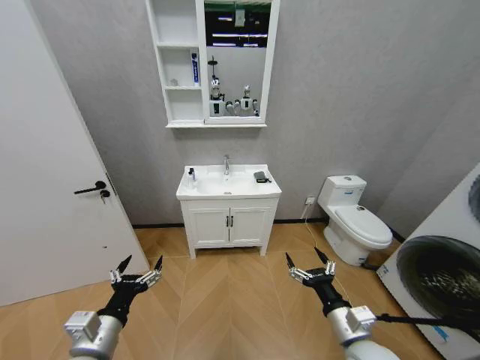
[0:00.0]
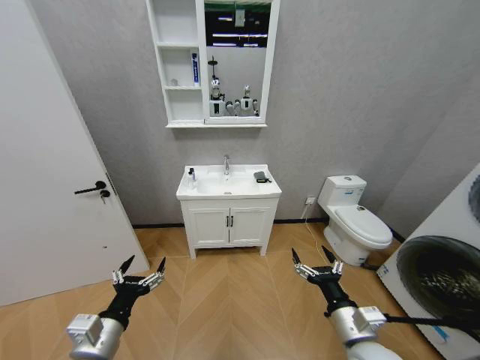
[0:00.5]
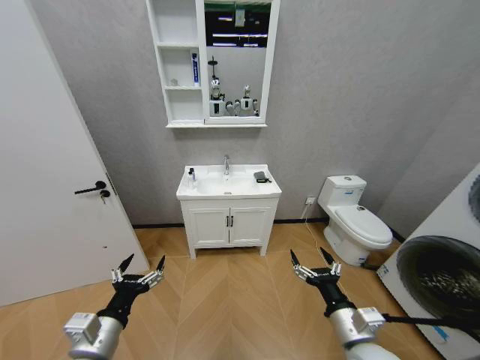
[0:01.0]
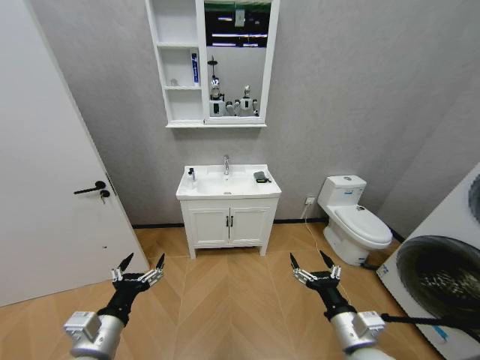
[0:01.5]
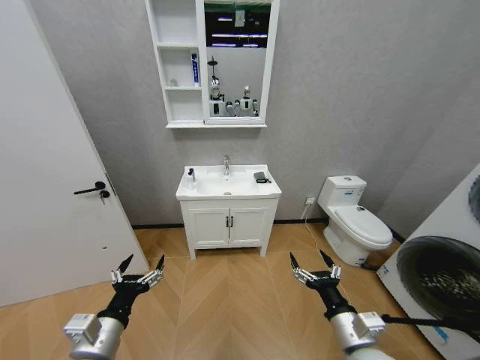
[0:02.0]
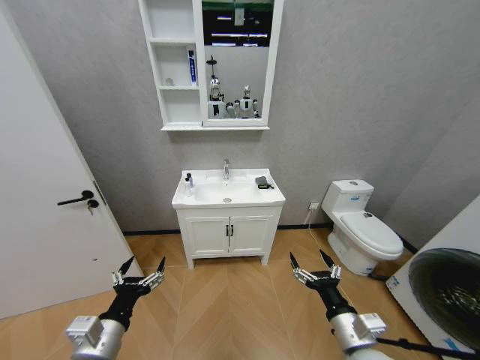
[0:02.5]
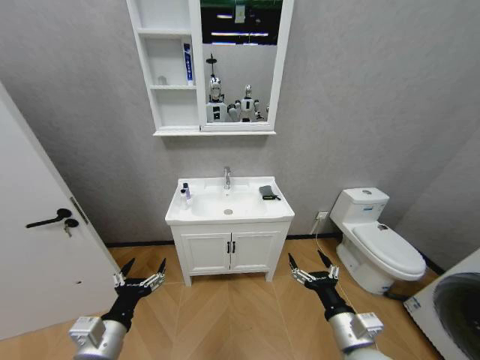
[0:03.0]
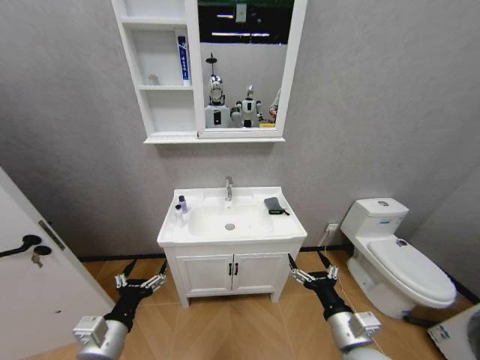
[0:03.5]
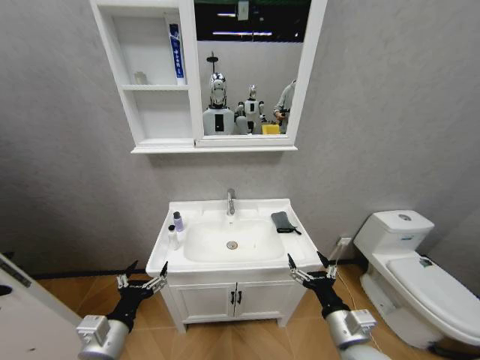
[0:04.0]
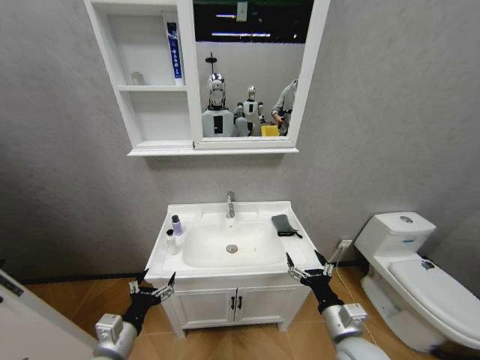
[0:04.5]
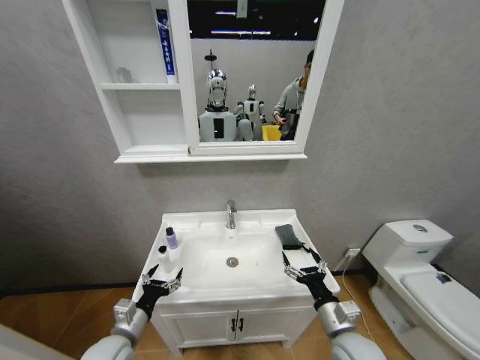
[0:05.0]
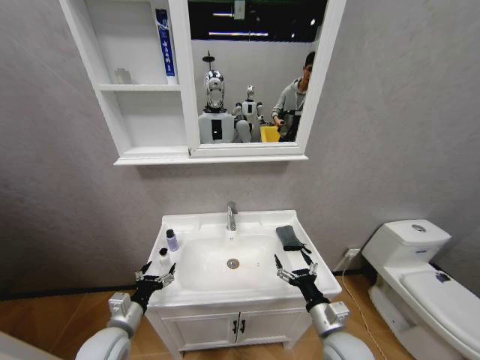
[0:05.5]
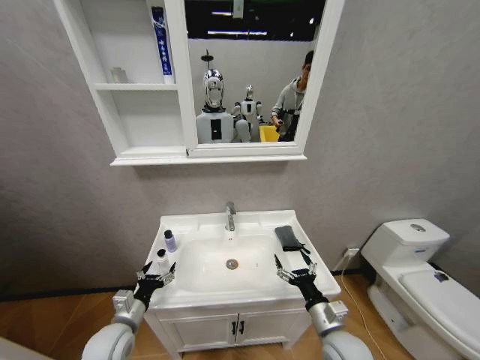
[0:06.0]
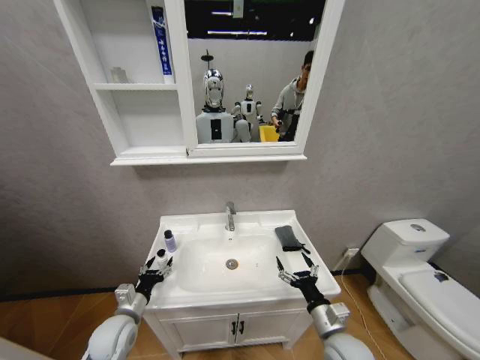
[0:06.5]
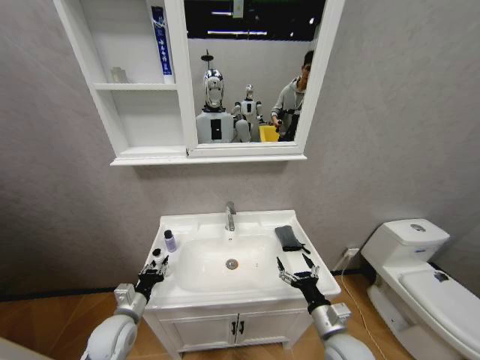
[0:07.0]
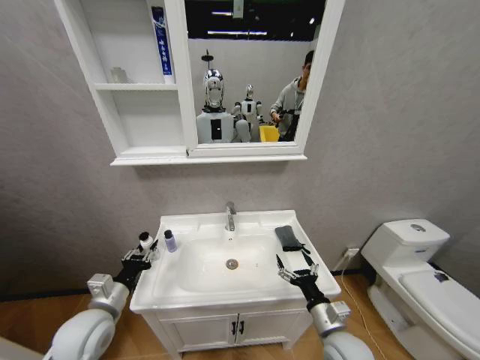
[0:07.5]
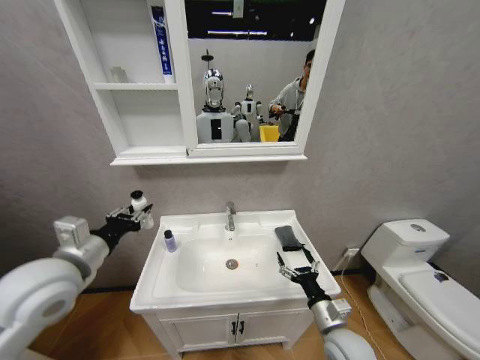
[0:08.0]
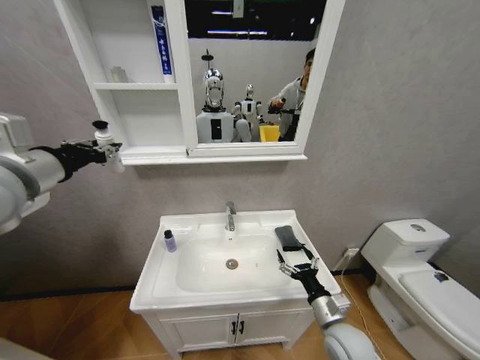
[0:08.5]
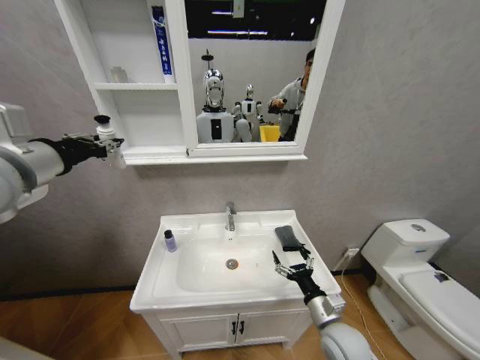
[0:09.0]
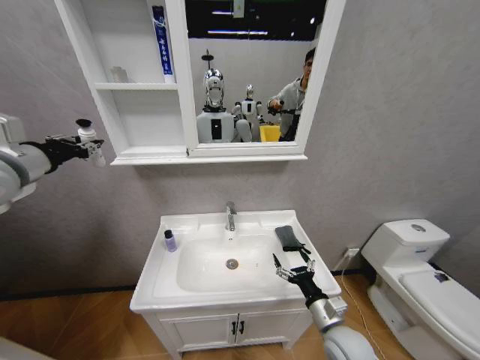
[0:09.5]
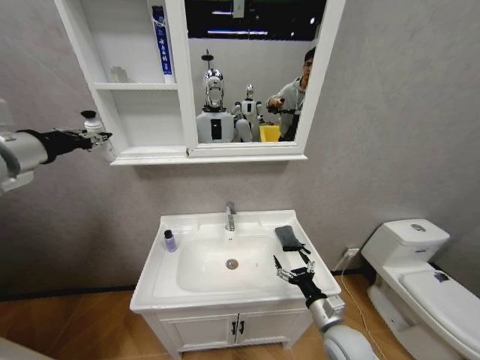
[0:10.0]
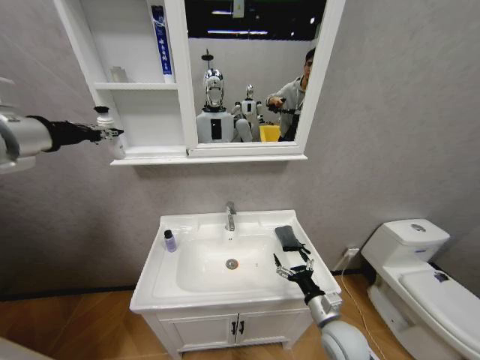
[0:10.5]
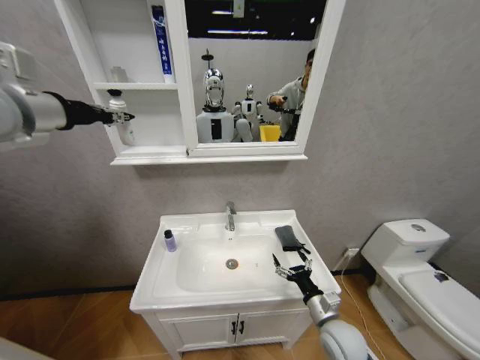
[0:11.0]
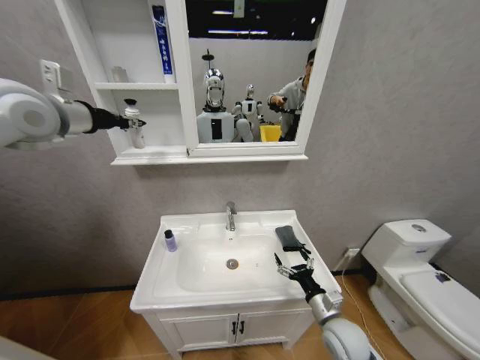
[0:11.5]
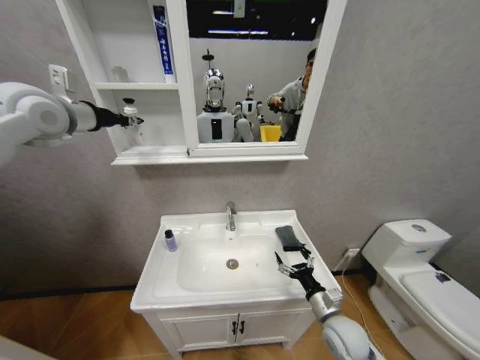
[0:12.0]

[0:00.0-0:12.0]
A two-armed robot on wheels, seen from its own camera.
Task of the whole recording: Move facial cleanser and shampoo from washbasin to cabinet, then wipe washbasin with towel.
0:04.0 to 0:06.0: The right gripper moves downward, some 5 cm. Meanwhile the left gripper moves downward and forward, some 10 cm.
0:06.0 to 0:08.0: The left gripper travels upward by some 25 cm, and closes its fingers.
0:08.0 to 0:10.0: The left gripper travels upward, to the left and forward by approximately 20 cm.
0:10.0 to 0:12.0: The left gripper heads forward, covering about 15 cm.

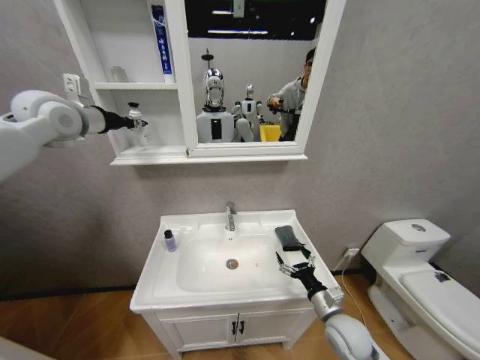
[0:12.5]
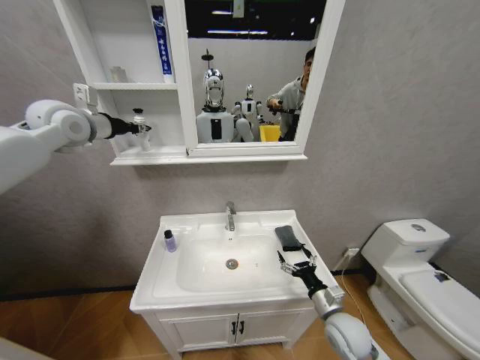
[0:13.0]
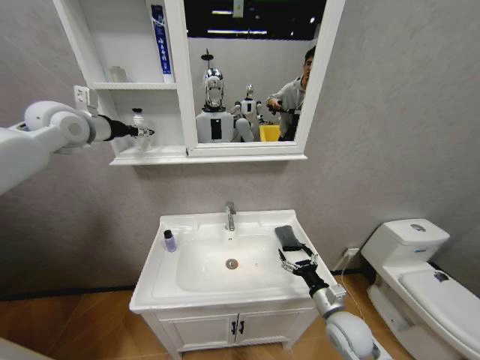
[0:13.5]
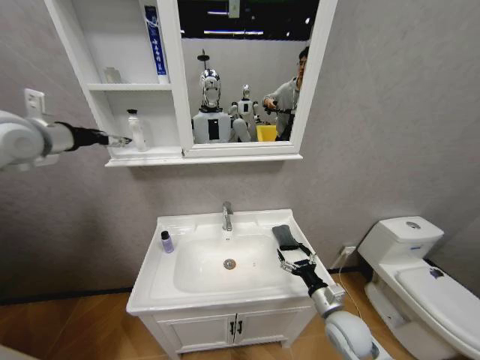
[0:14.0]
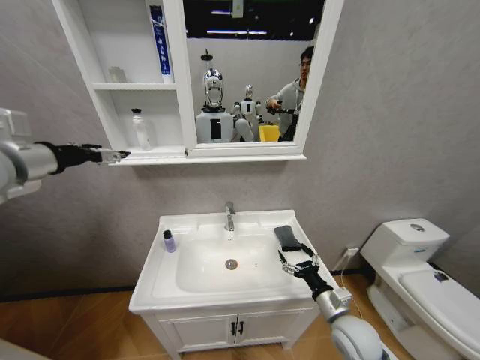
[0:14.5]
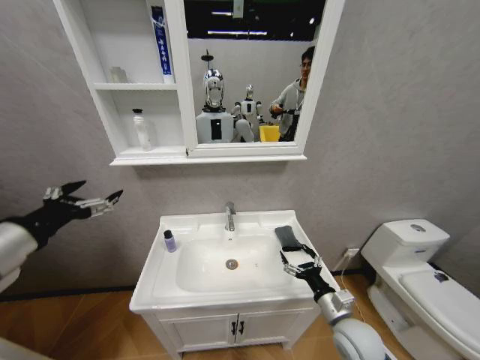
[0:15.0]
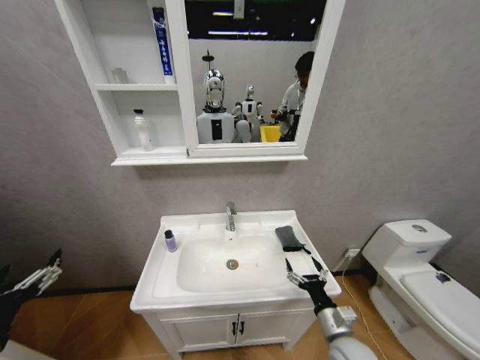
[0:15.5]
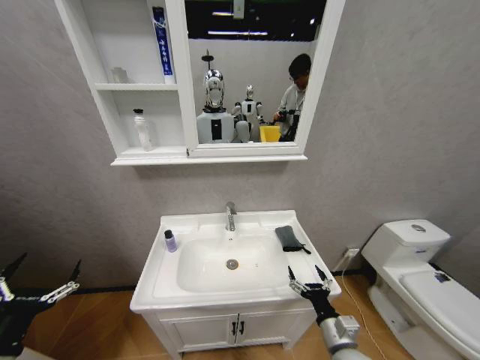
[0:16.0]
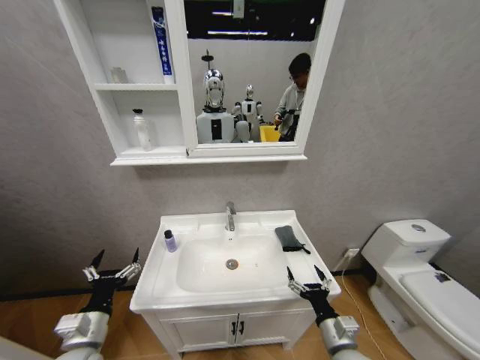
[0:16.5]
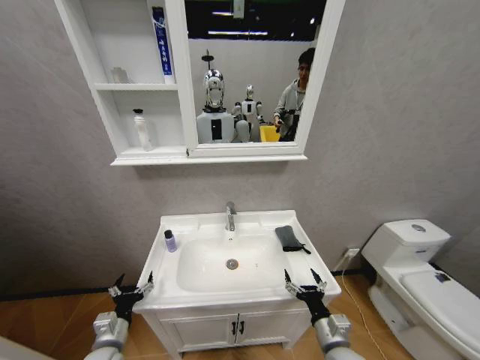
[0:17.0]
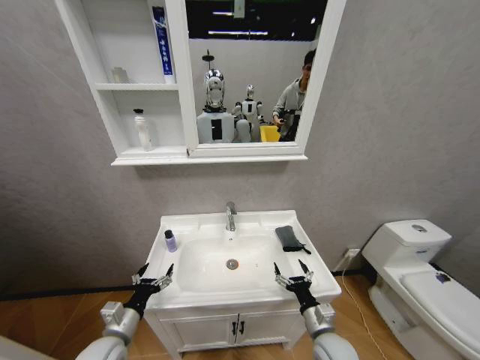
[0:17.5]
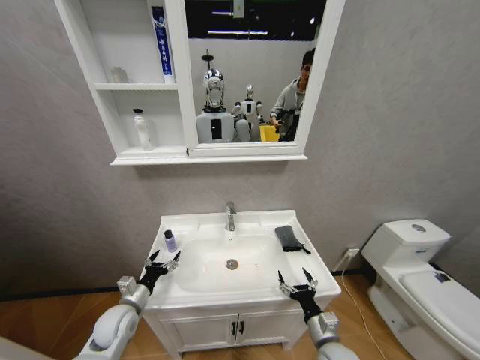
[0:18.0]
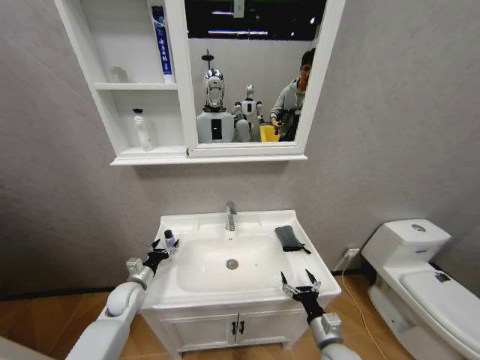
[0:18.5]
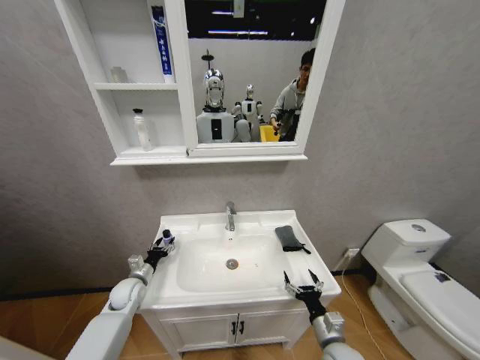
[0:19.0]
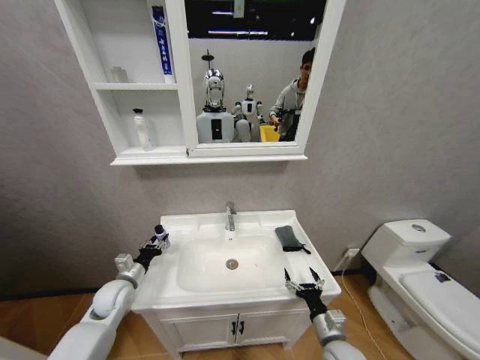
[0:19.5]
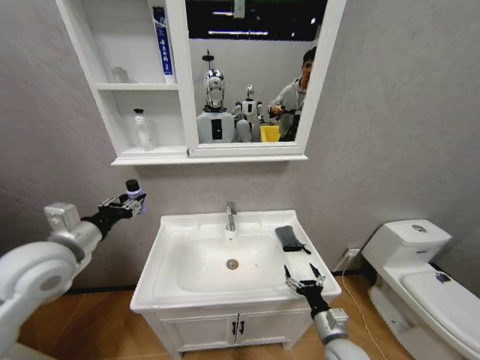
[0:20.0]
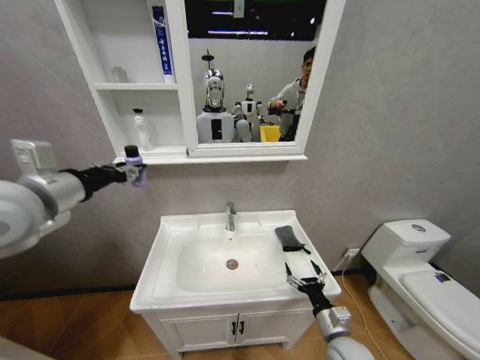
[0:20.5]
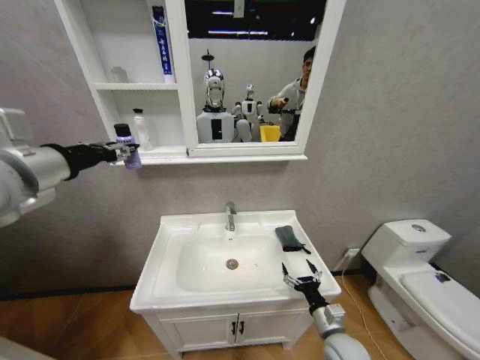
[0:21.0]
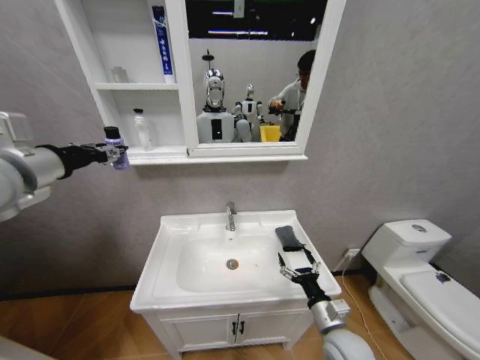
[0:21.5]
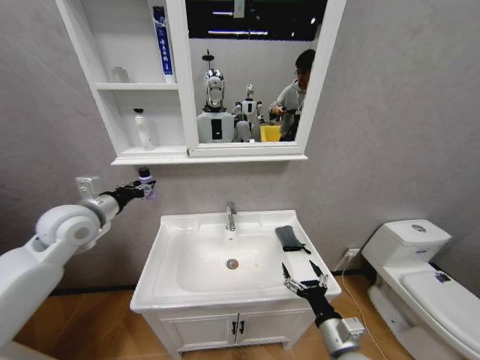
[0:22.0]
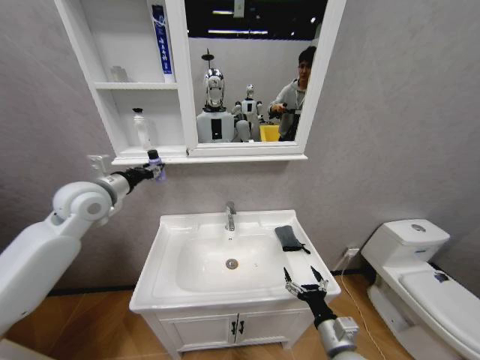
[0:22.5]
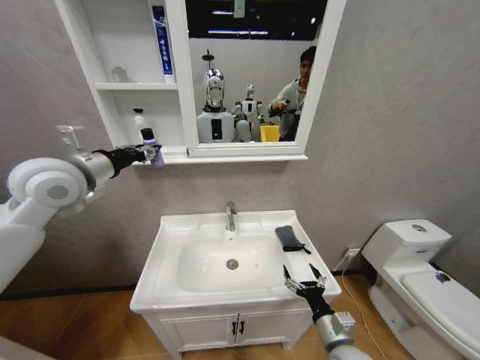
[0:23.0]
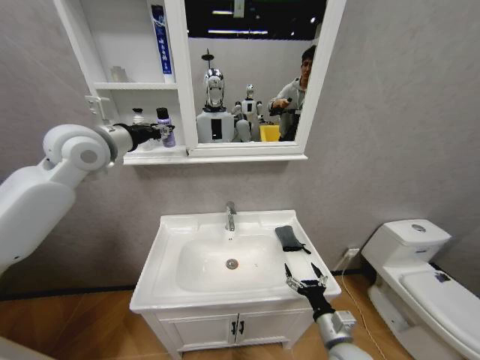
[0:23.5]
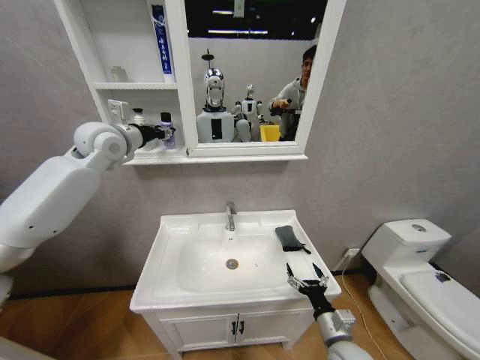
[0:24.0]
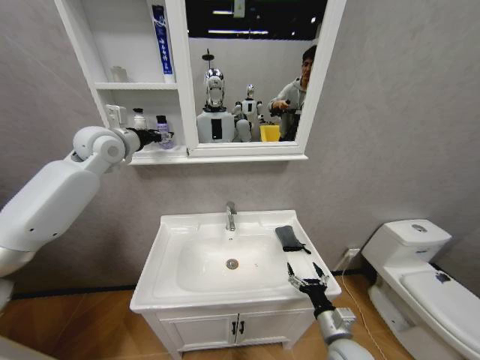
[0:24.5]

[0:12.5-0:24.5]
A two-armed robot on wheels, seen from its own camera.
Task of the whole recording: Move facial cleanser and shampoo from washbasin to cabinet, then wipe washbasin with towel.
0:12.5 to 0:14.5: The left gripper moves backward, about 15 cm, and opens up.
0:14.5 to 0:16.5: The left gripper goes about 40 cm downward and backward, while the right gripper moves backward, approximately 5 cm.
0:16.5 to 0:18.5: The right gripper moves downward, about 5 cm. The left gripper moves forward and downward, some 20 cm.
0:18.5 to 0:20.5: The left gripper shifts approximately 40 cm upward, and closes its fingers.
0:20.5 to 0:22.5: The left gripper travels forward and downward by about 15 cm.
0:22.5 to 0:24.5: The left gripper travels forward and upward by some 15 cm.

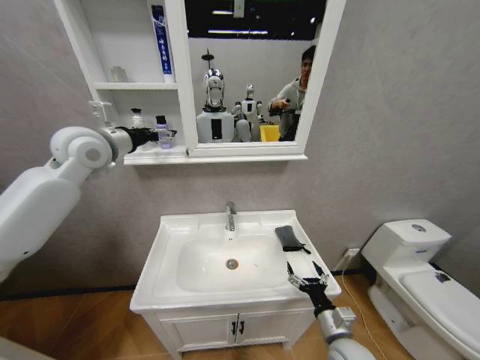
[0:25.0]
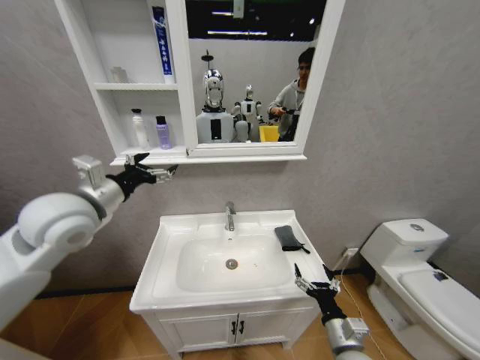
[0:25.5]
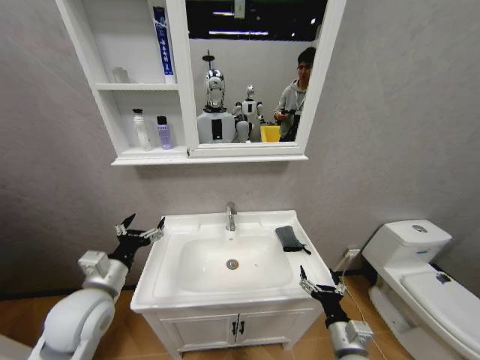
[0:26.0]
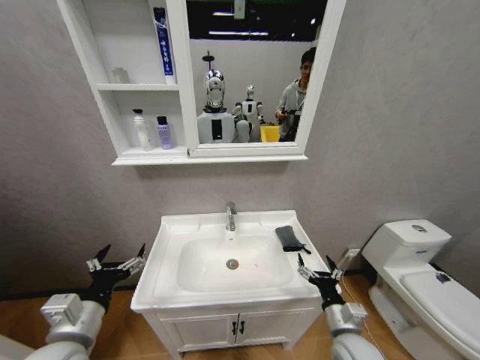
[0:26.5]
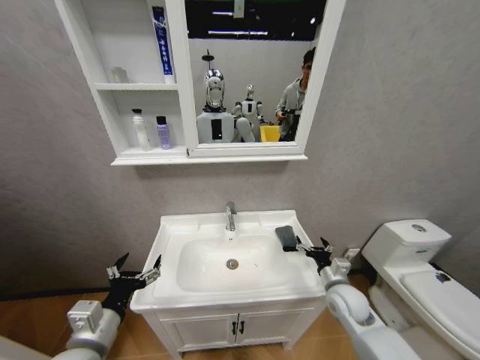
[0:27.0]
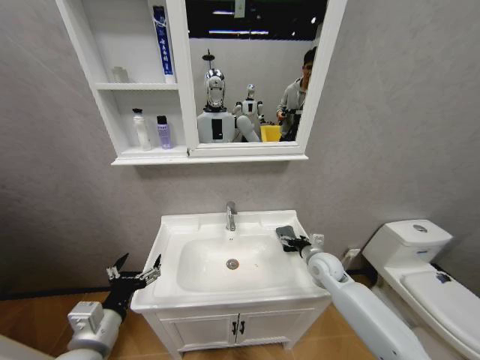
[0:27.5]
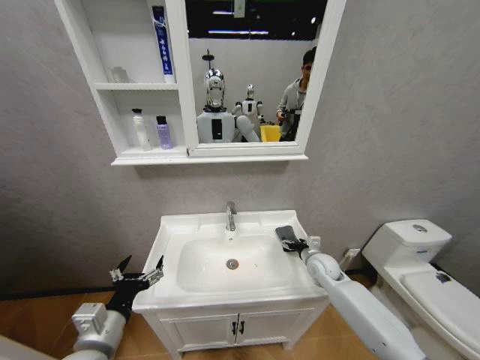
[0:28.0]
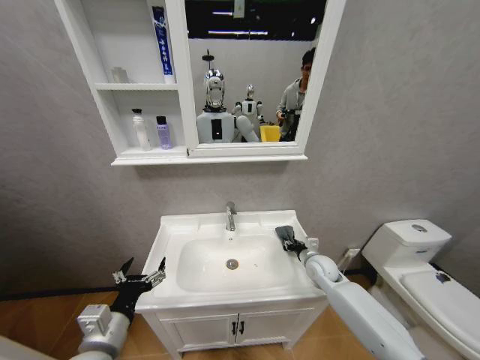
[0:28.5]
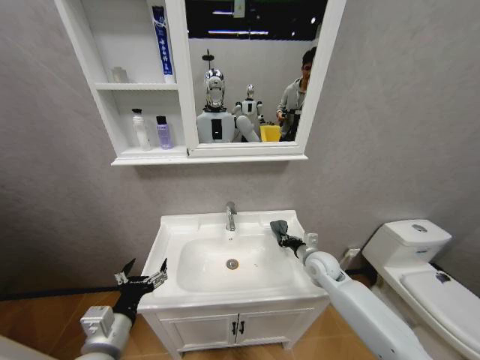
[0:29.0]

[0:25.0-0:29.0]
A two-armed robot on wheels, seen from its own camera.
Task of the whole recording: Move facial cleanser and shampoo from washbasin to cabinet, then wipe washbasin with towel.
0:25.0 to 0:27.0: The right gripper heads forward, covering about 10 cm. Meanwhile the left gripper is displaced backward and downward by roughly 40 cm.
0:27.0 to 0:29.0: The right gripper goes roughly 10 cm forward, and closes.
